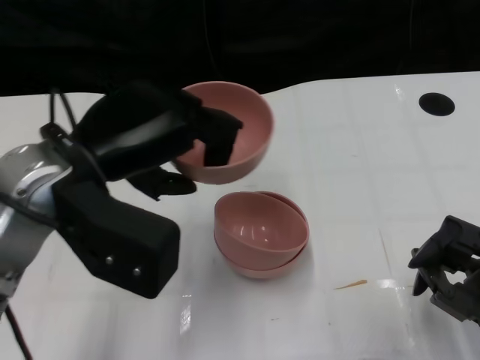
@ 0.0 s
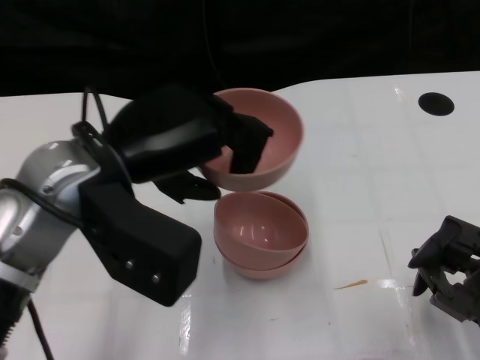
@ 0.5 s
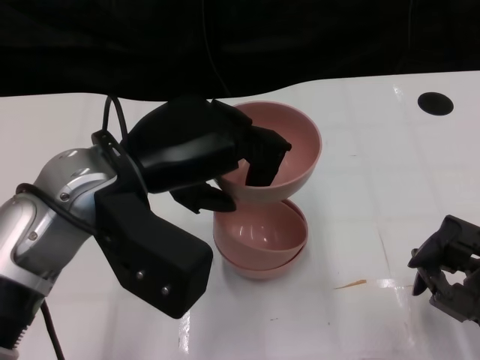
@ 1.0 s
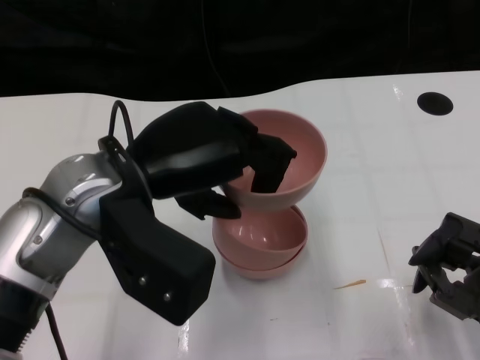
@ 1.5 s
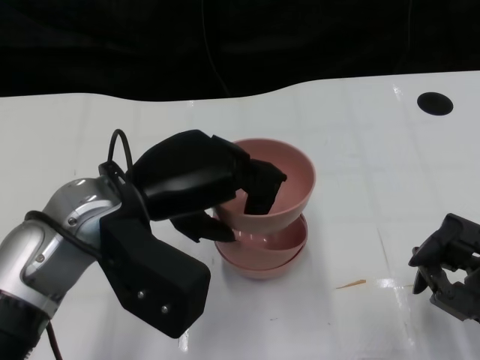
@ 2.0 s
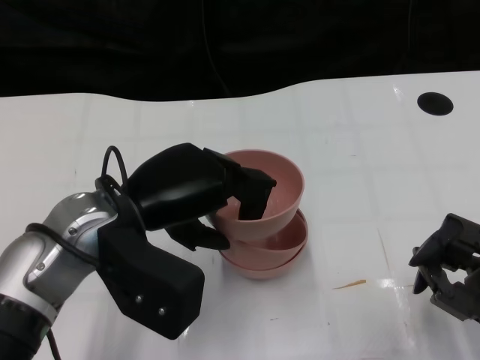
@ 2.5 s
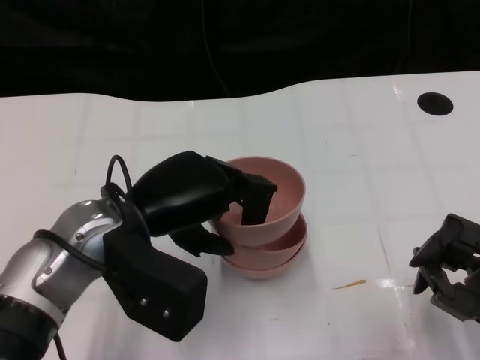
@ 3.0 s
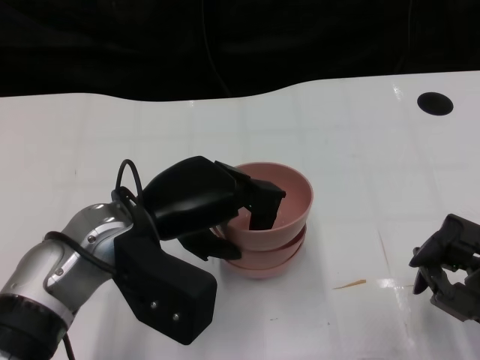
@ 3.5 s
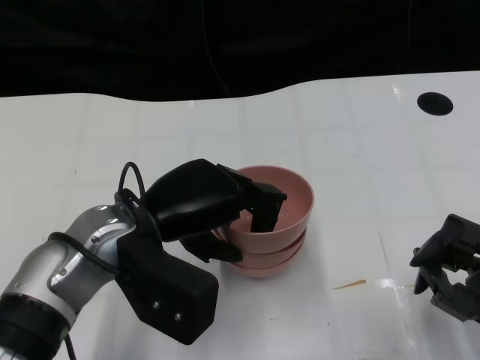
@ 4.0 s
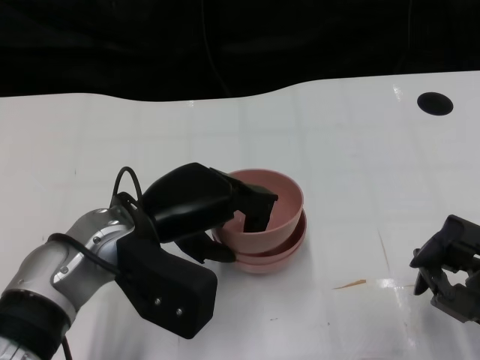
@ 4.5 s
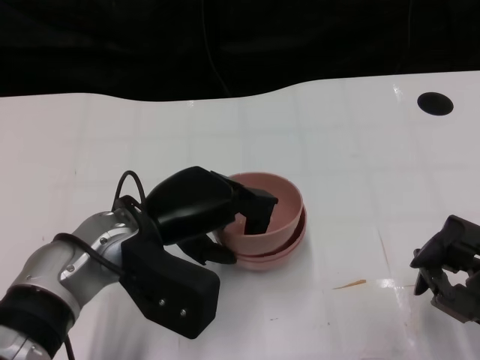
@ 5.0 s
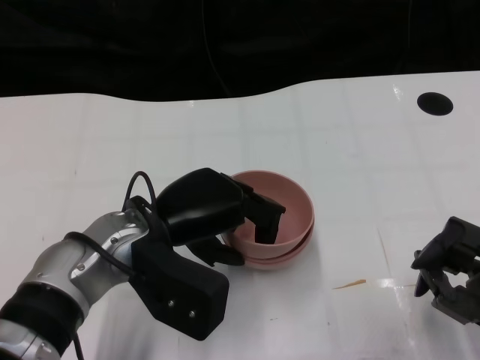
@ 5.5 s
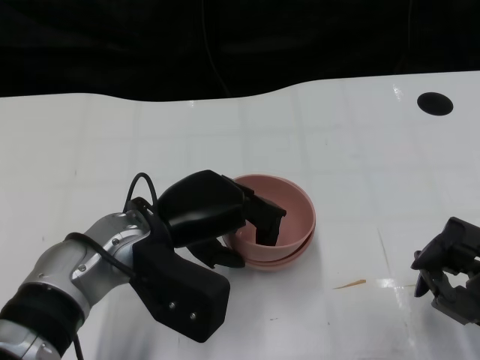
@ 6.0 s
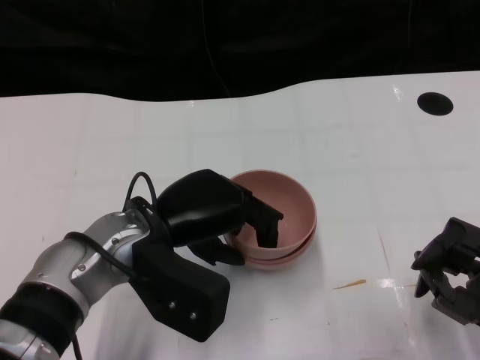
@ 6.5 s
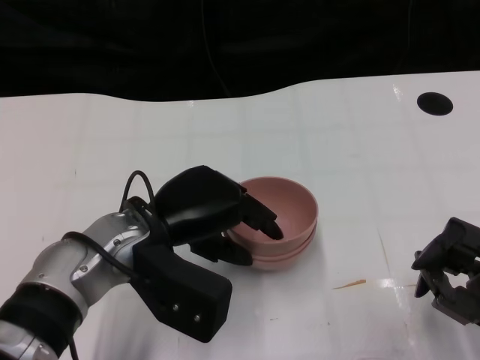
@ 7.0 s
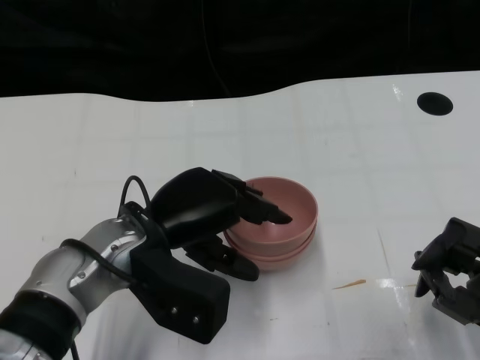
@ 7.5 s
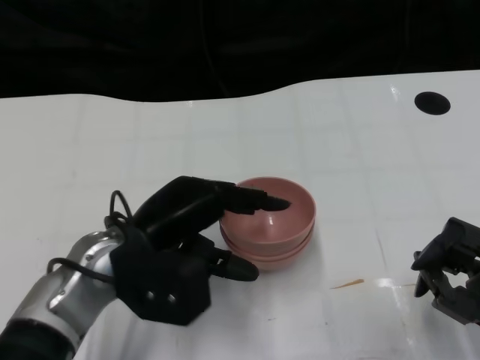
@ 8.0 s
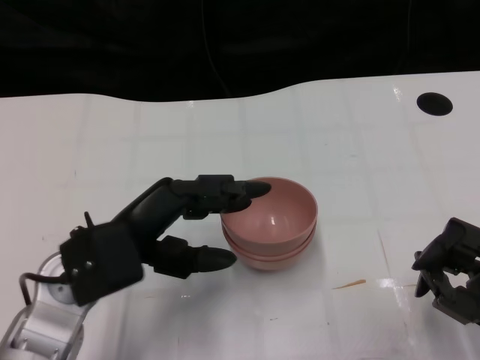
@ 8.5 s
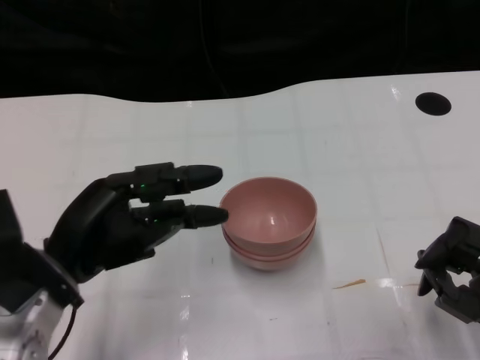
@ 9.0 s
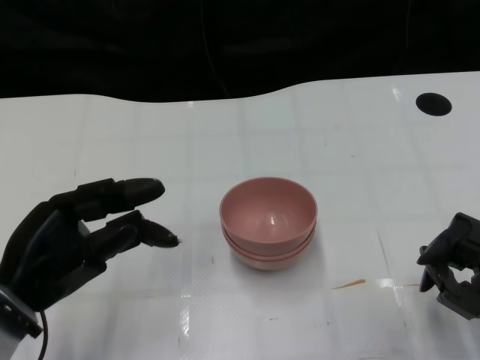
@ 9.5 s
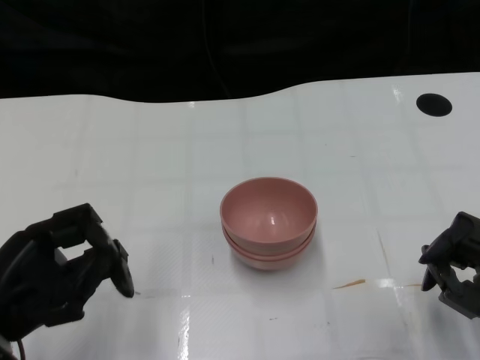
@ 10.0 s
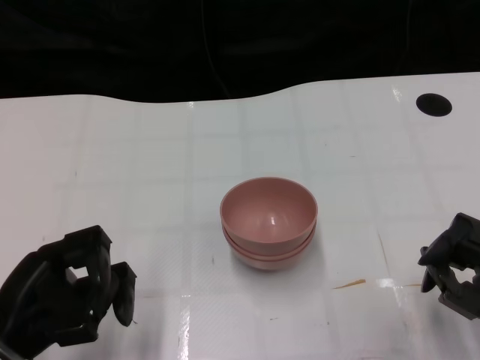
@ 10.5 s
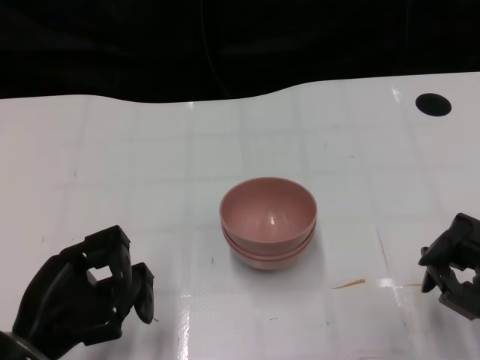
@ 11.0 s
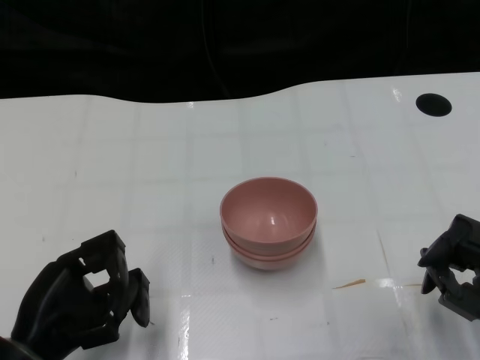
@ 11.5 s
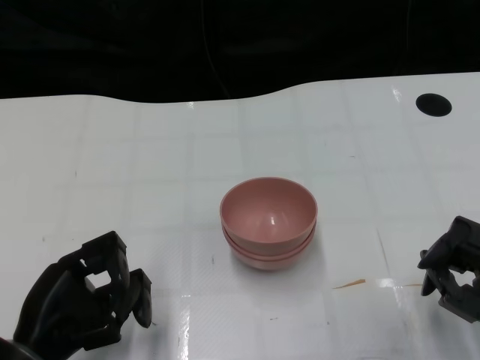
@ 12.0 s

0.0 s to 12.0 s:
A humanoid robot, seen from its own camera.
Task of the whole recording: Pick up the bowl on one side of the table and place it on top of the middle bowl, then pick up the bowl on the other side of the table and place it on top of the middle bowls.
Step, 0.0 to 8.0 s: Place the bowl on the left onto the bowl in the middle with left gripper.
2.0 to 4.0 s: The hands move only a little.
4.0 to 8.0 s: There are only small adjustments of the hands.
8.0 to 10.0 s: The left hand shifts roughly 15 cm to the left and backward.
10.0 to 12.0 s: The left hand moves about 5 cm.

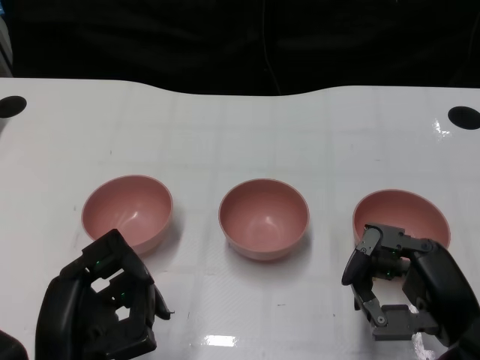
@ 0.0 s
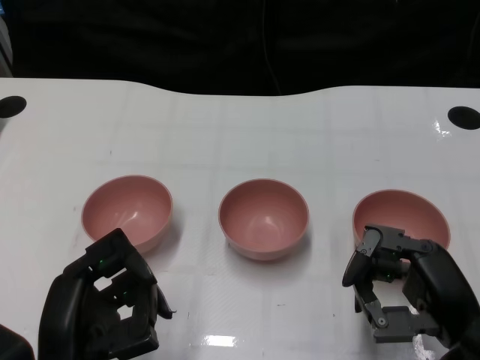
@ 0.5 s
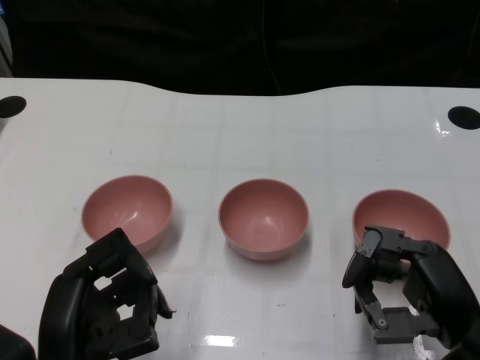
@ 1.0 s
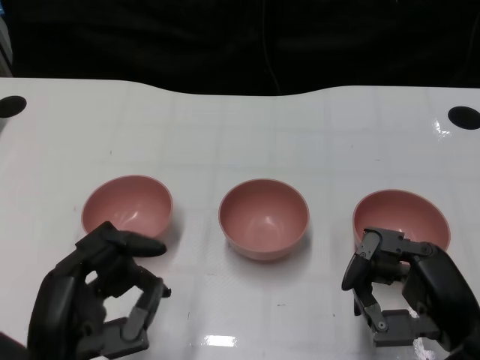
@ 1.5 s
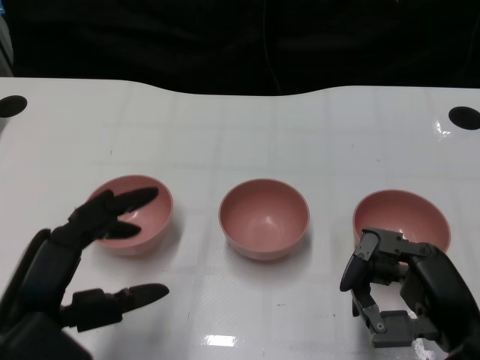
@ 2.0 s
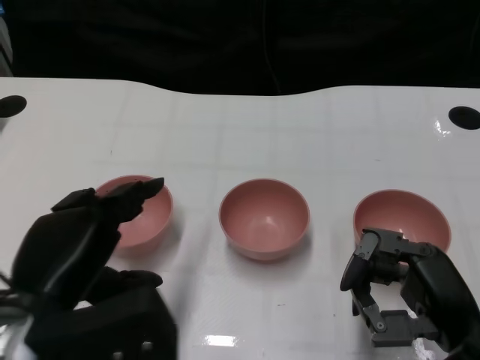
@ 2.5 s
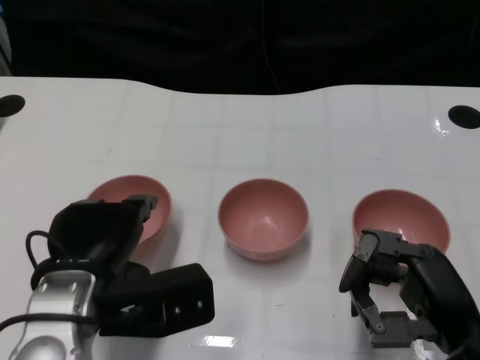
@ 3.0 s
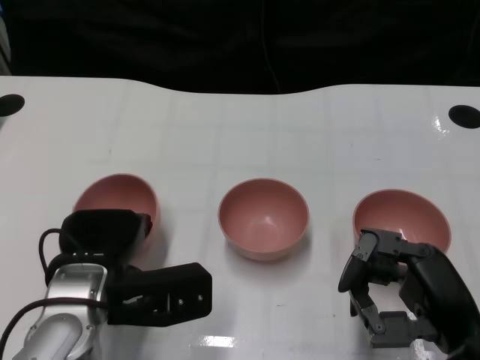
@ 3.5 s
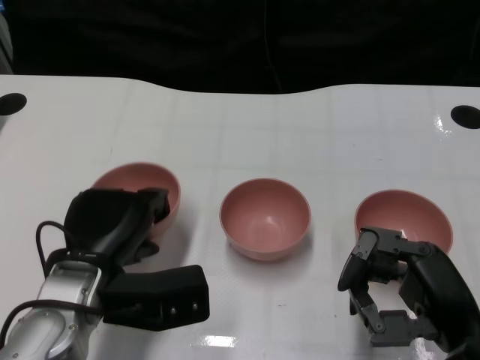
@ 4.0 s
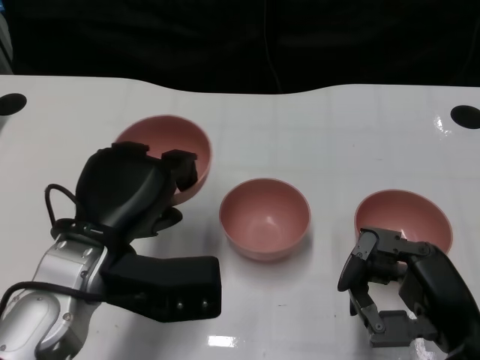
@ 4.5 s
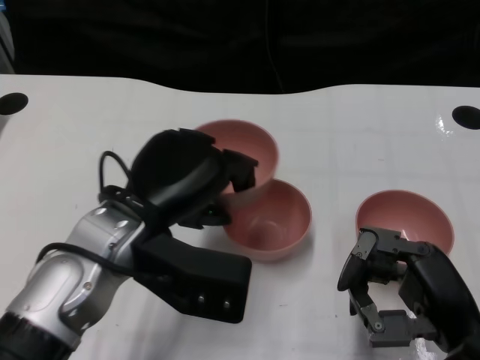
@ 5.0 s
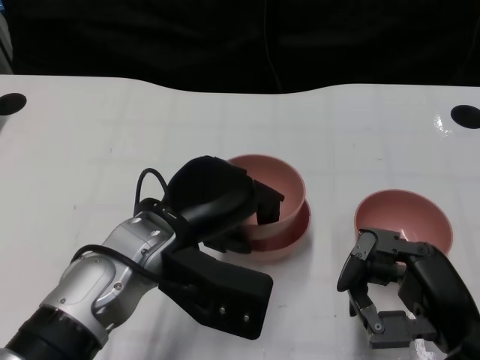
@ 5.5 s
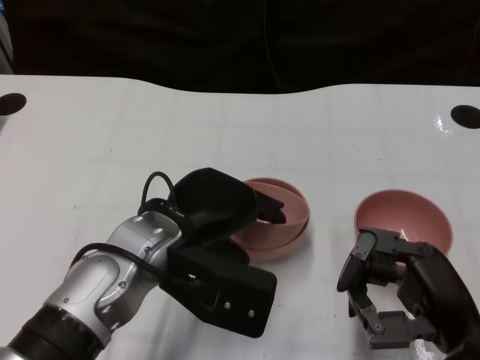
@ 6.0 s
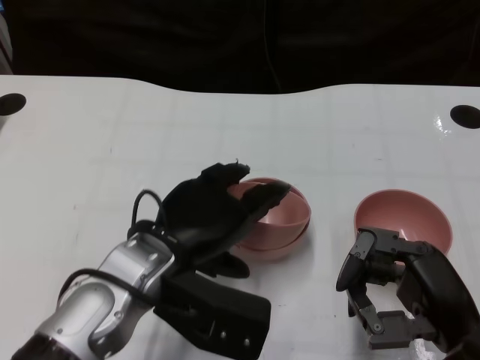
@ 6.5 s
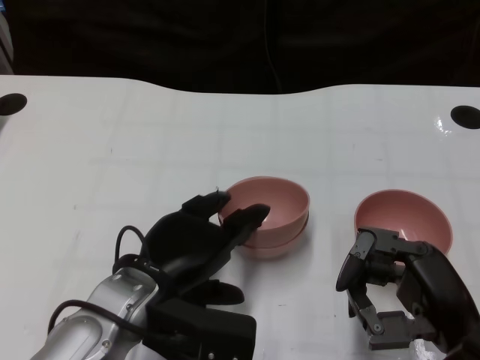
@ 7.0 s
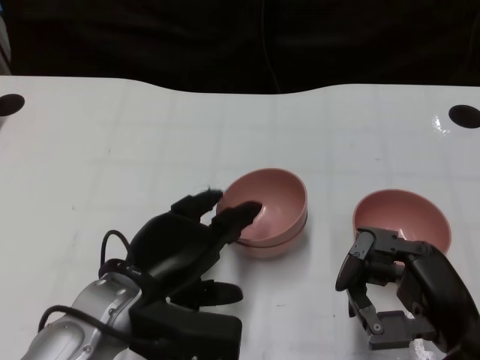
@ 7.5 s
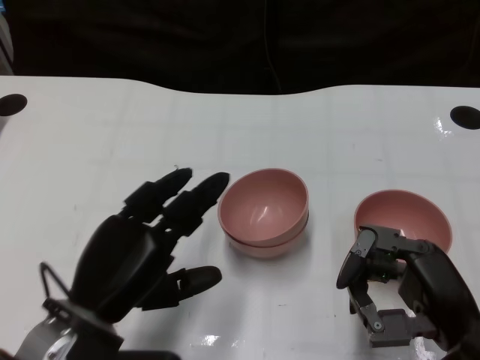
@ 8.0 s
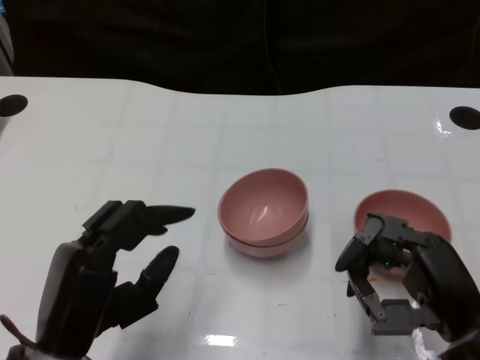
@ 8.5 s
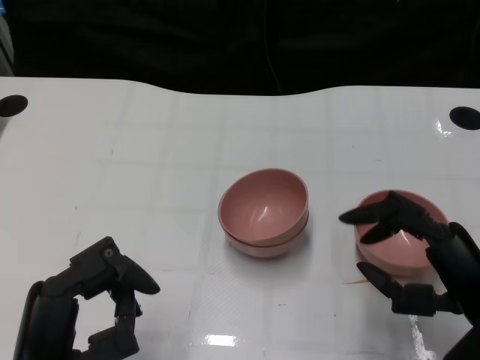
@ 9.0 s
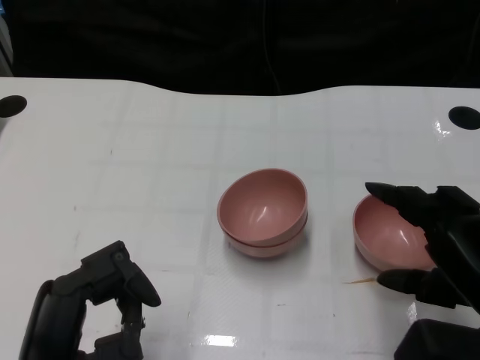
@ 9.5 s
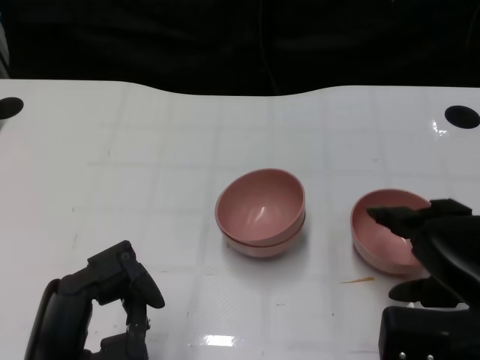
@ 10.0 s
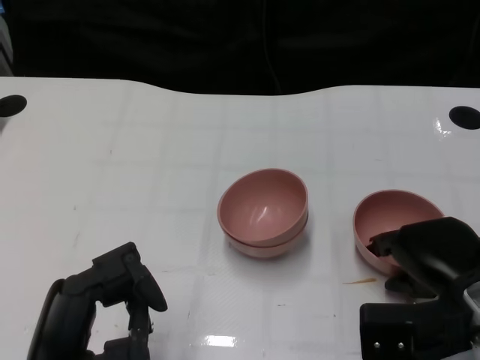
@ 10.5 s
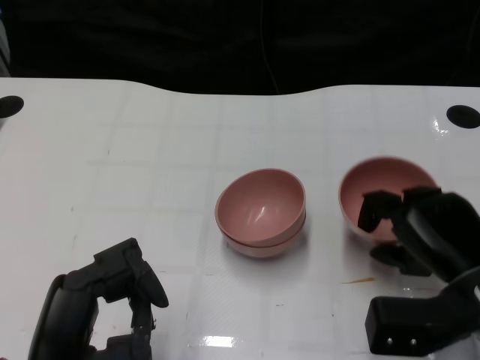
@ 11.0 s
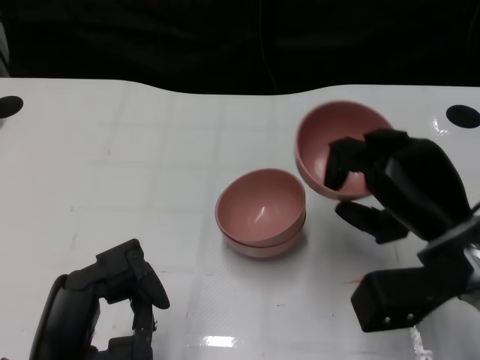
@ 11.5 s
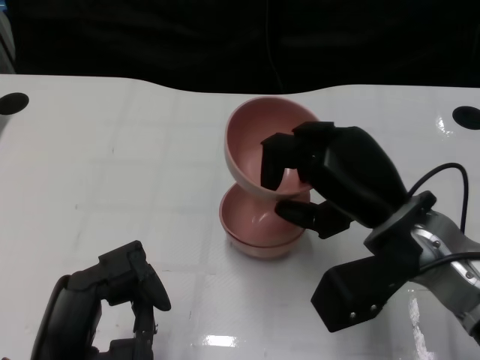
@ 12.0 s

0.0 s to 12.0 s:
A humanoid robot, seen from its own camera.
Task of the whole recording: Pick up the bowl on one side of the table and place it on top of the middle bowl, then pick up the bowl on the other side of the table and place it on top of the middle bowls.
Step, 1.5 to 4.0 s: Grasp the bowl on the left with the left gripper.
Step, 4.5 to 7.5 s: Place the bowl on the left onto the bowl in the middle with left gripper.
Step, 8.0 to 10.5 s: Grasp the bowl on the right with the right gripper.
2.0 to 4.0 s: The left hand shifts some 10 cm forward and to the right.
4.0 to 6.0 s: The left hand shifts some 10 cm to the right and upward.
6.0 to 8.0 s: The left hand shifts roughly 10 cm to the left and backward.
8.0 to 10.0 s: The left hand moves backward, about 5 cm.
10.0 to 12.0 s: The right hand travels to the left and forward by approximately 10 cm.

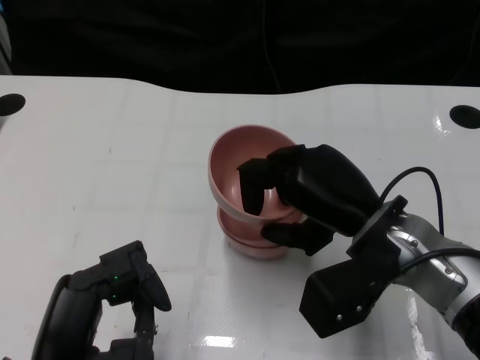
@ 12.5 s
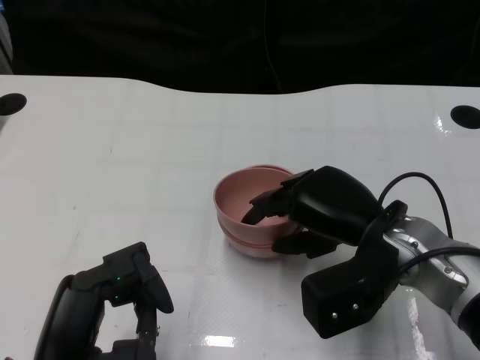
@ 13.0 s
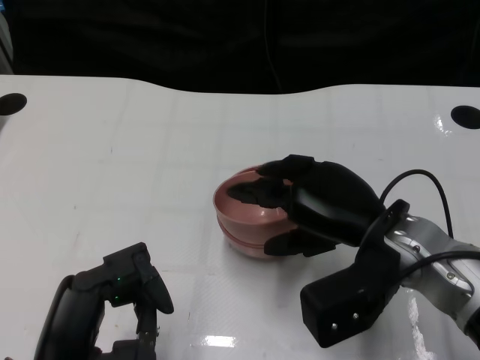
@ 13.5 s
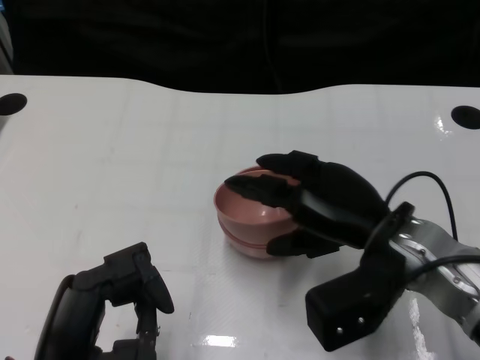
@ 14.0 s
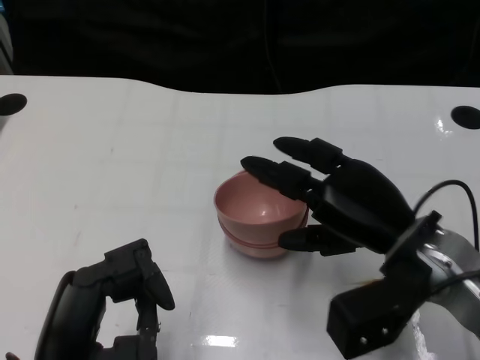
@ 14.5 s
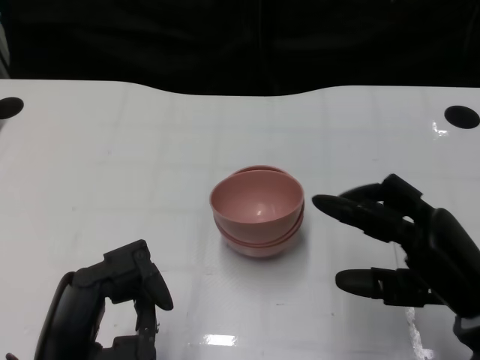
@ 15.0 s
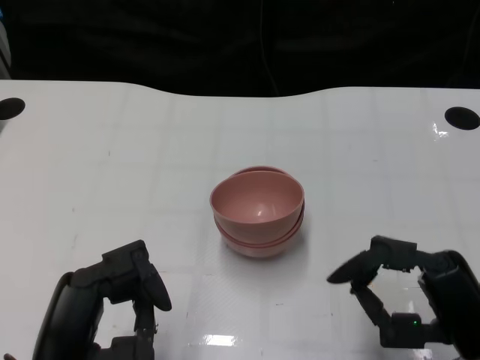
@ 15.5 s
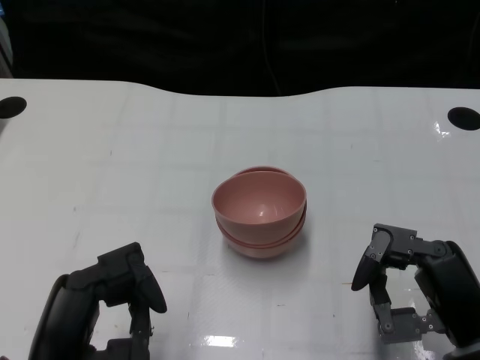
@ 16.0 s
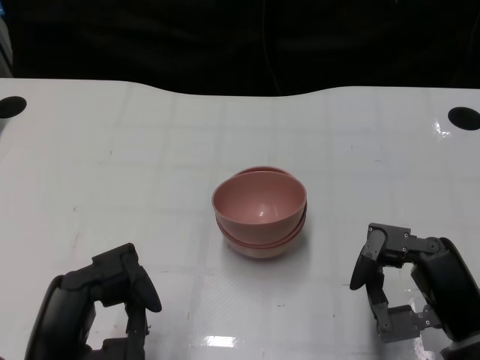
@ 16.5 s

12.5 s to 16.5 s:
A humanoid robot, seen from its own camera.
Task of the whole recording: Pick up the bowl on one side of the table and place it on top of the middle bowl, then pick up the bowl on the other side of the table and place it on top of the middle bowls.
12.5 to 14.5 s: The hands stay close to where they were, moving slightly.
14.5 to 16.5 s: The right hand is displaced backward and to the right by some 10 cm.
